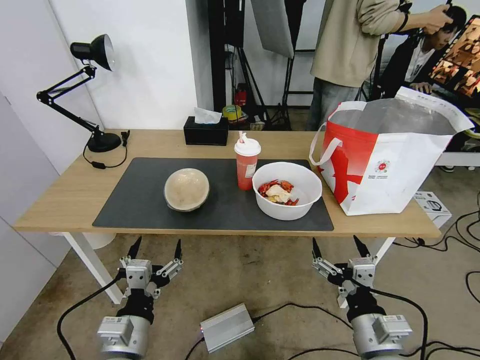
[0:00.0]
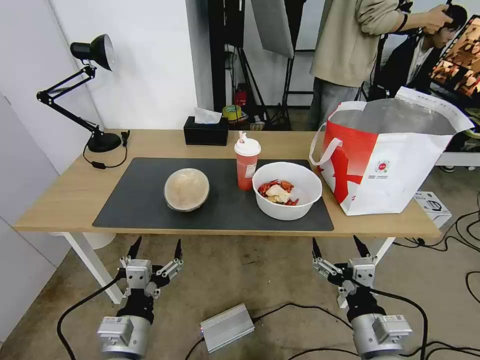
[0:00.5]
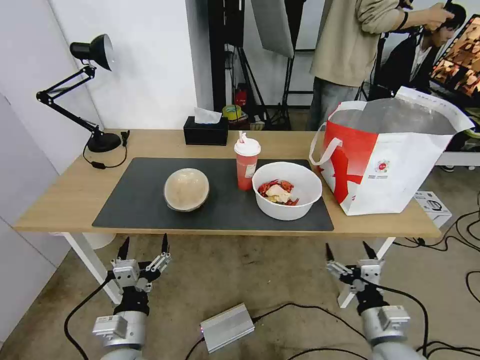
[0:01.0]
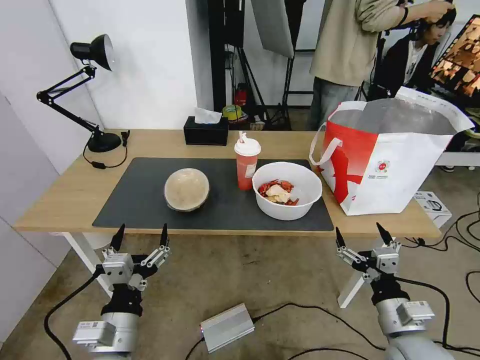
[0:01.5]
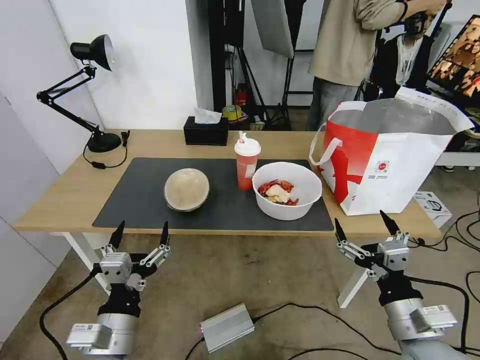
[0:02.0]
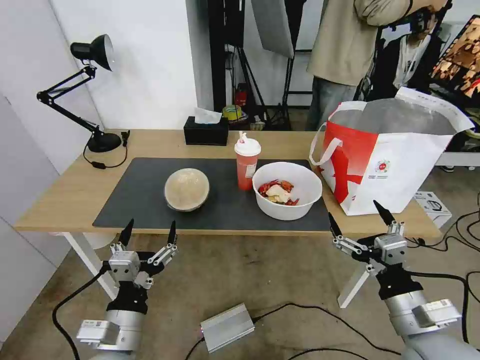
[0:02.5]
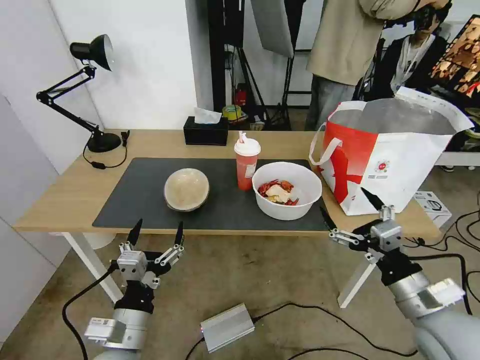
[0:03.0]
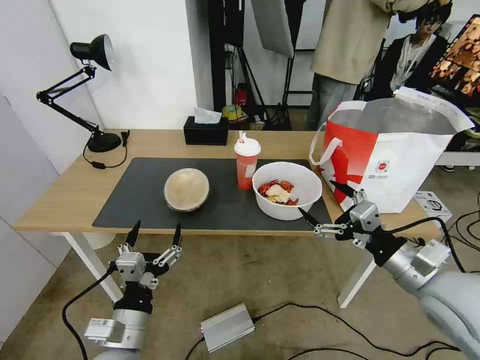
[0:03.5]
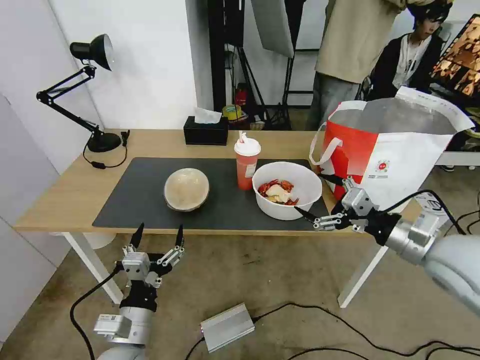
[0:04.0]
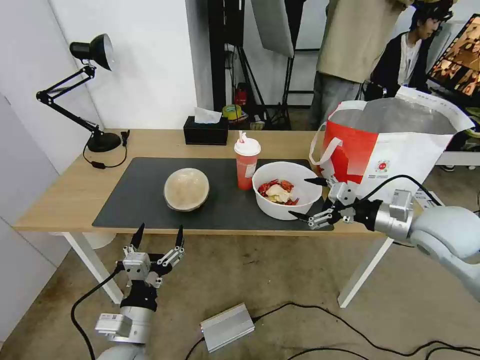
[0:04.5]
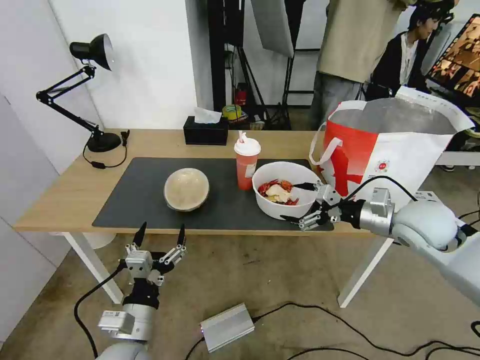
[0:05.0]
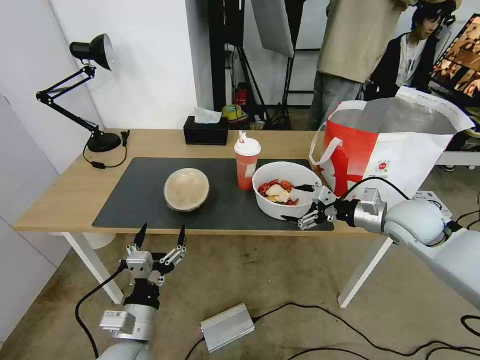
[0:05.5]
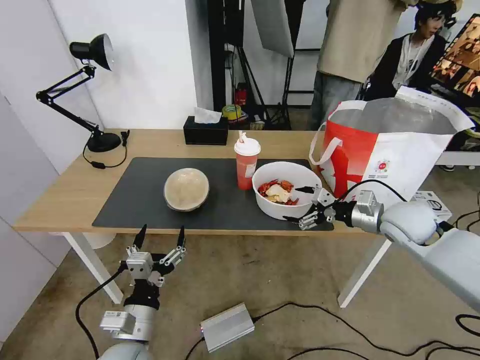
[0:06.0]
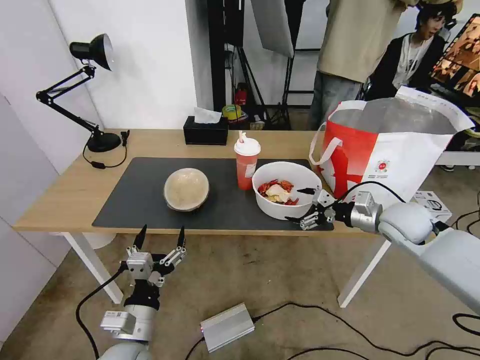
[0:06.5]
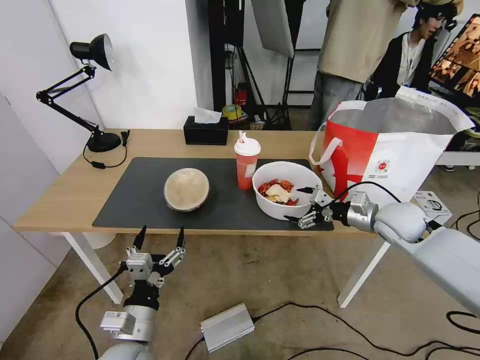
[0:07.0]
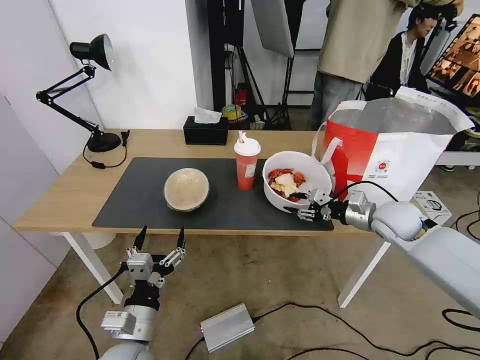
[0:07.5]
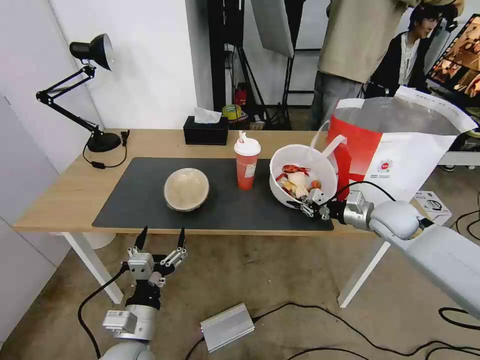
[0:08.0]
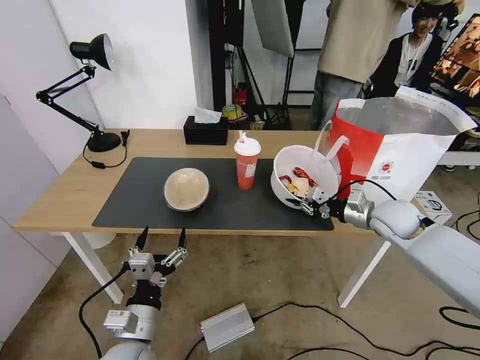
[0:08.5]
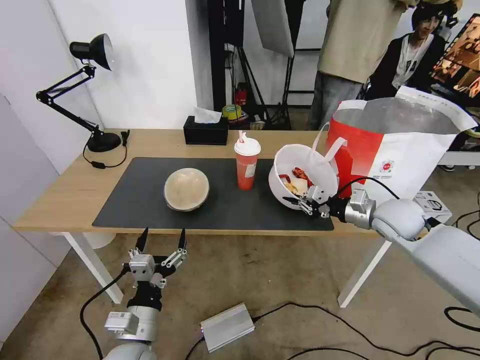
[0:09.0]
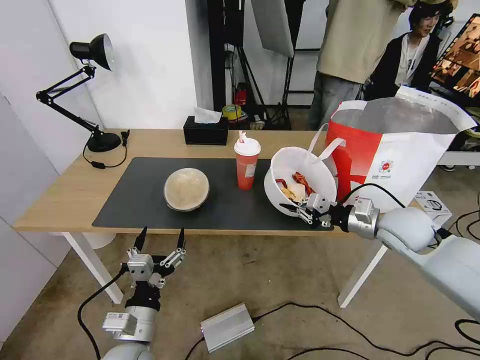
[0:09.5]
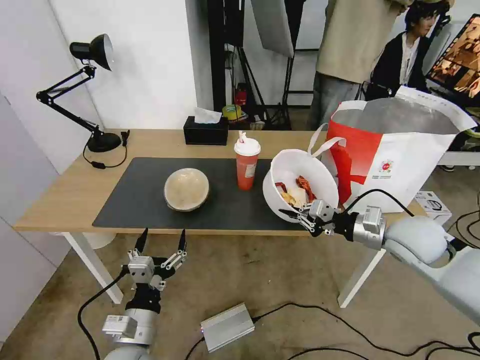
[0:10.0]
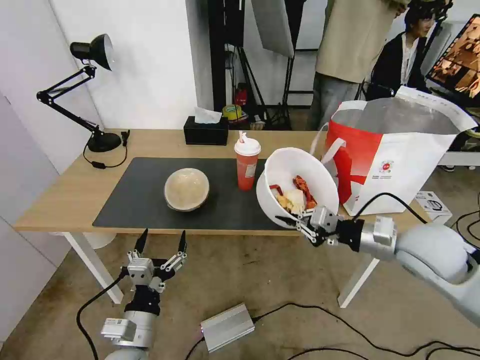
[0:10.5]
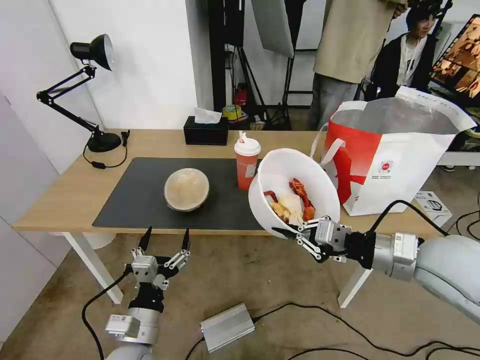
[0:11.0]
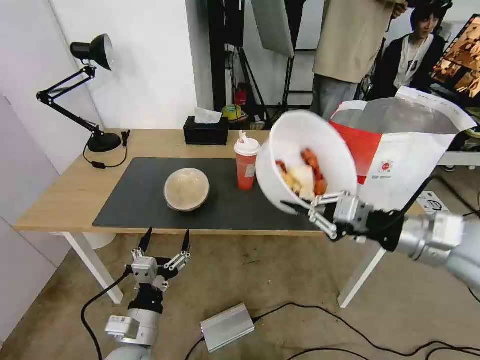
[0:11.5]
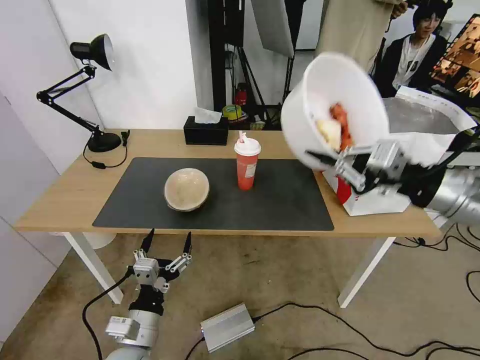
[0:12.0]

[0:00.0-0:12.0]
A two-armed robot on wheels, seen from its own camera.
Task of the whole recording: Pick up the trash from the table and place it into the takeout bag.
2.0 to 4.0 s: The right gripper travels forward, upward and to the right by about 20 cm.
4.0 to 6.0 s: The right gripper moves forward and downward, about 15 cm.
6.0 to 8.0 s: The right gripper closes.
8.0 to 10.0 s: The right gripper shifts roughly 10 cm backward.
10.0 to 12.0 s: The right gripper is displaced upward and backward by approximately 20 cm.

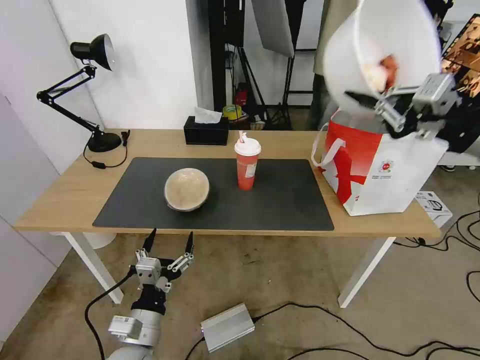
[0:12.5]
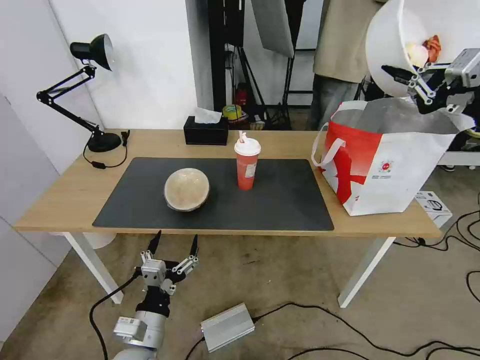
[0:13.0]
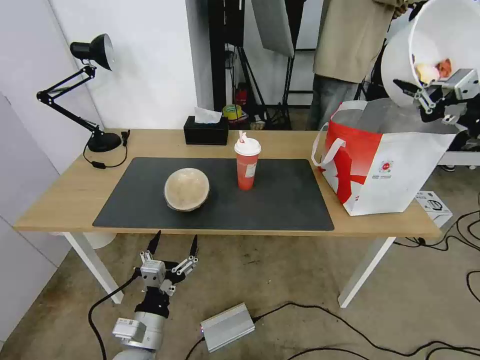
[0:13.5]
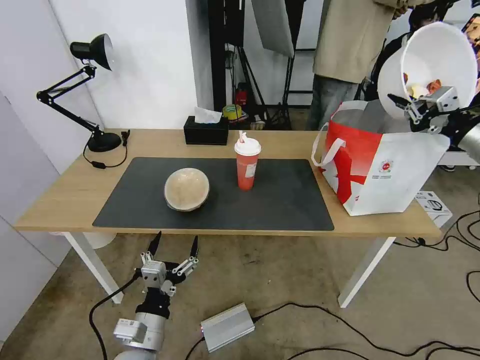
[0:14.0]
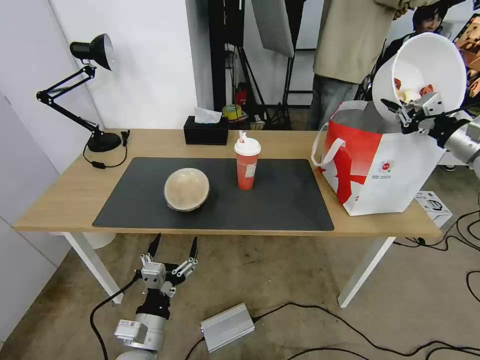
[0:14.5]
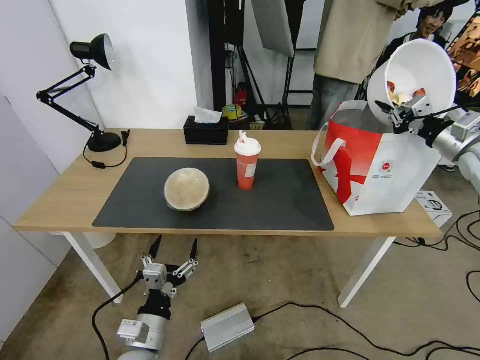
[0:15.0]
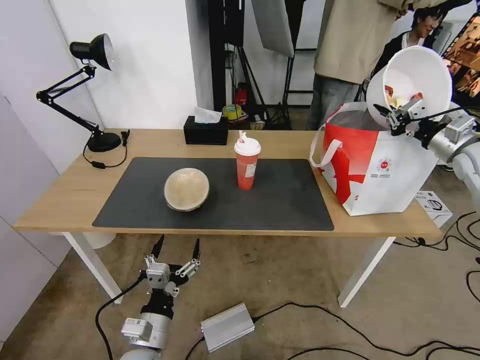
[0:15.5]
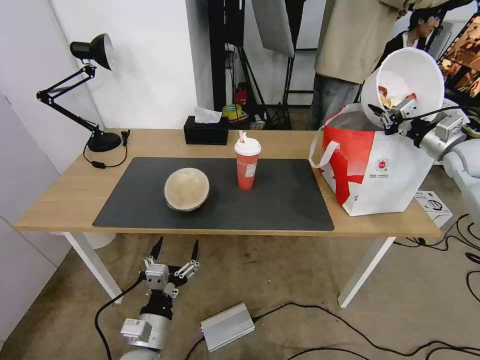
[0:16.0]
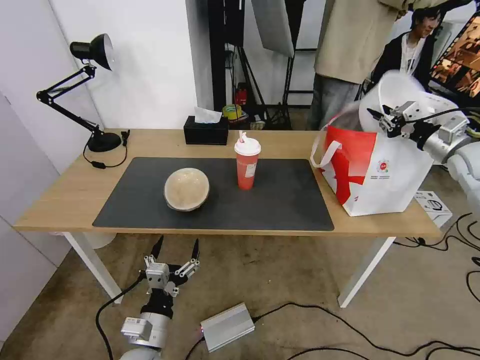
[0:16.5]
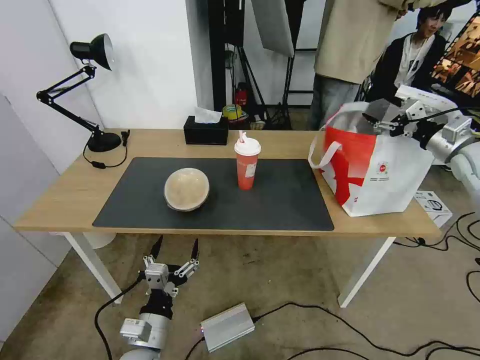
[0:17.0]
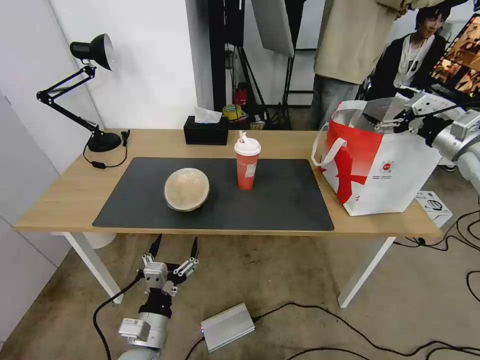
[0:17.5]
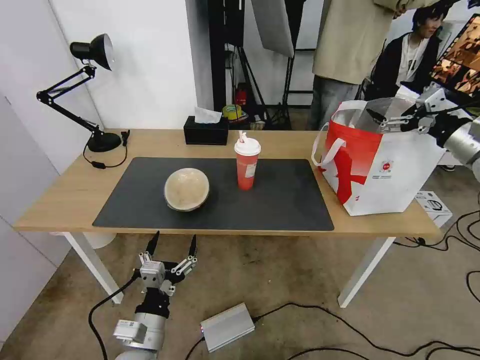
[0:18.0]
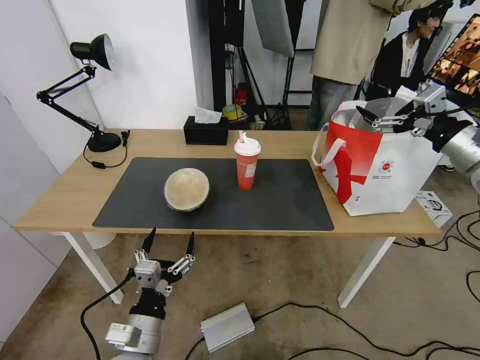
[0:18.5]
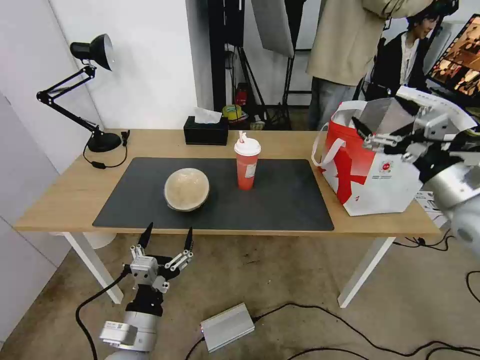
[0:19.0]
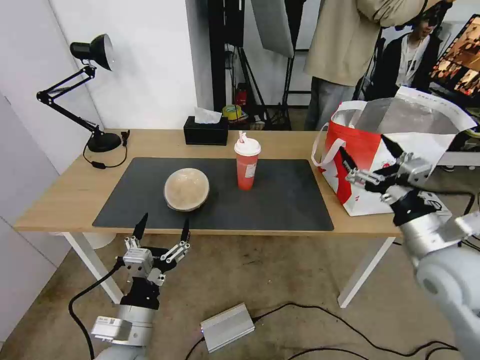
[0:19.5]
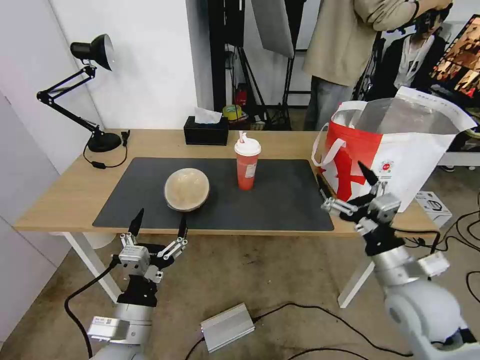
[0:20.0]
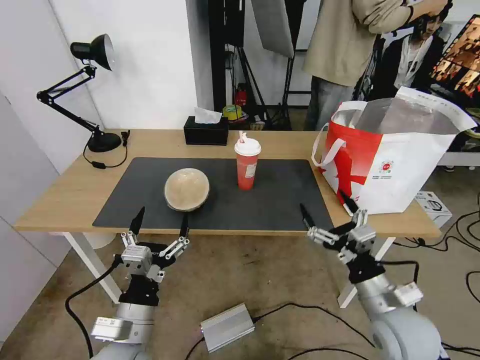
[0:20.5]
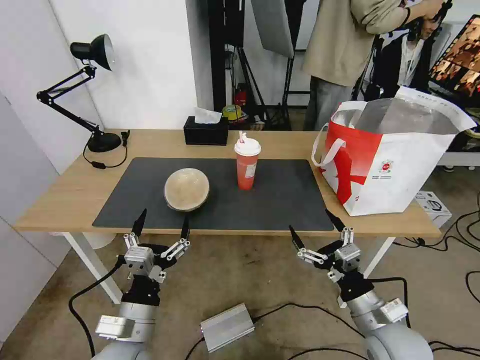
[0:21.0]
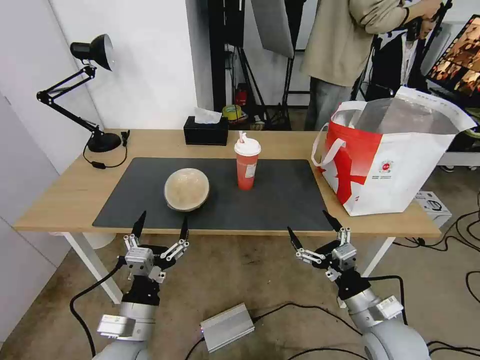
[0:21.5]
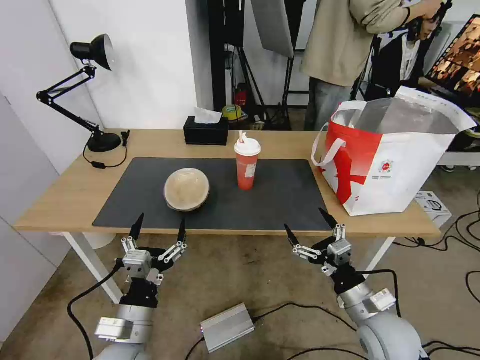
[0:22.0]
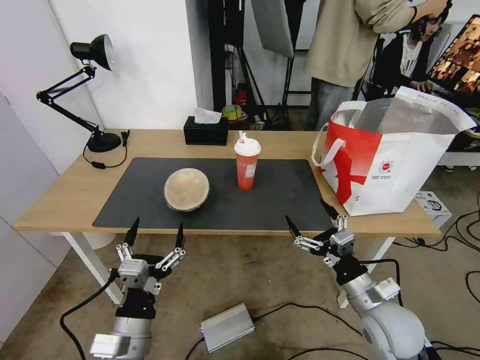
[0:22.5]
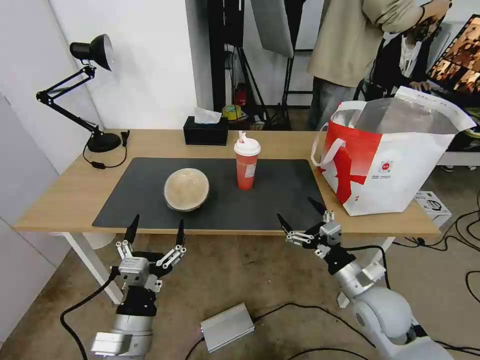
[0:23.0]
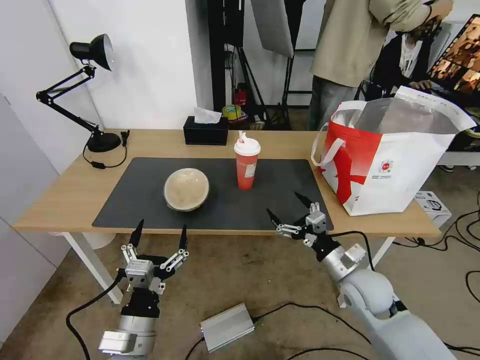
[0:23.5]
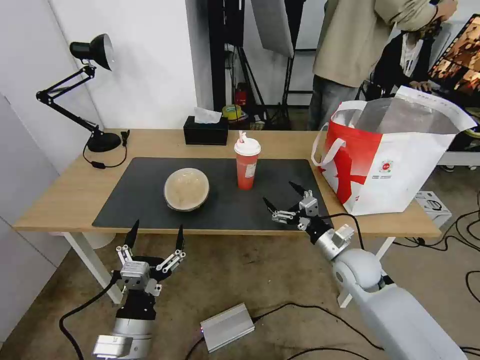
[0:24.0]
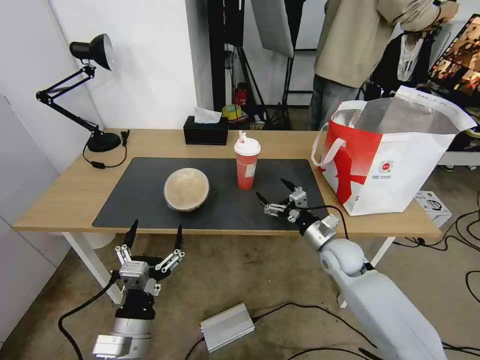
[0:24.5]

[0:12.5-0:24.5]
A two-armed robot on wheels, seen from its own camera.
Task of the whole recording: Pick up the trash from the table and place it into the takeout bag.
12.5 to 14.5 s: The right gripper moves forward, to the right and downward, about 20 cm.
14.5 to 16.5 s: The right gripper goes approximately 5 cm forward.
16.5 to 18.5 s: The right gripper is displaced backward, to the left and upward by some 15 cm, and opens its fingers.
18.5 to 20.5 s: The right gripper moves downward, backward and to the left, approximately 35 cm.
20.5 to 22.5 s: The grippers stay close to where they were, moving slightly.
22.5 to 24.5 s: The right gripper shifts about 15 cm forward.

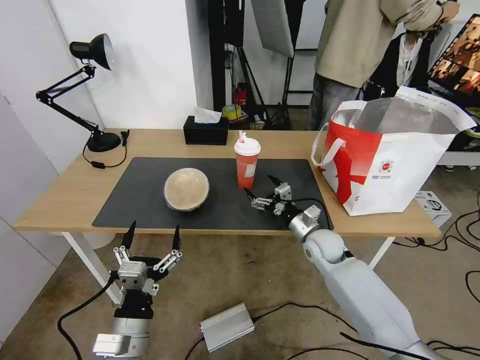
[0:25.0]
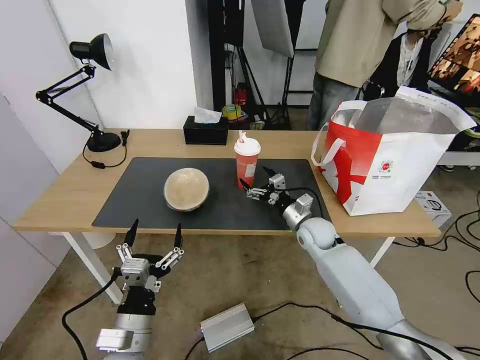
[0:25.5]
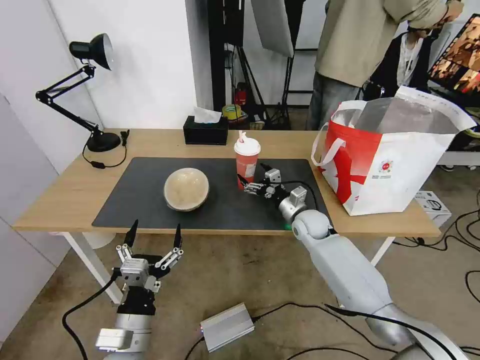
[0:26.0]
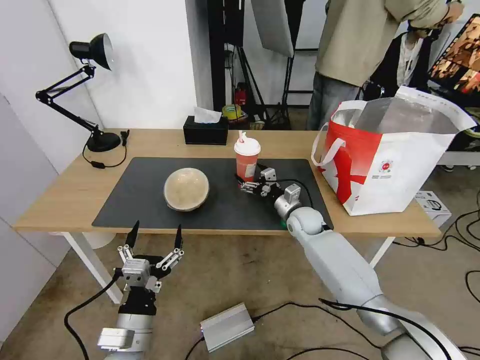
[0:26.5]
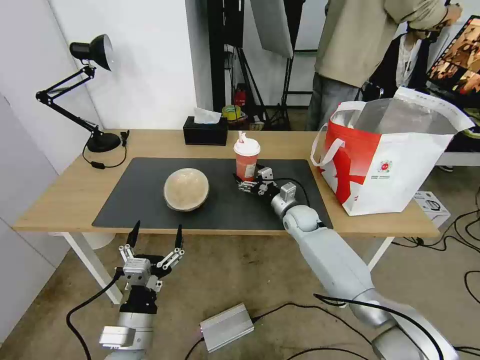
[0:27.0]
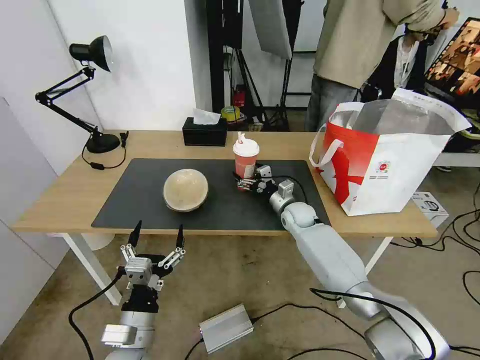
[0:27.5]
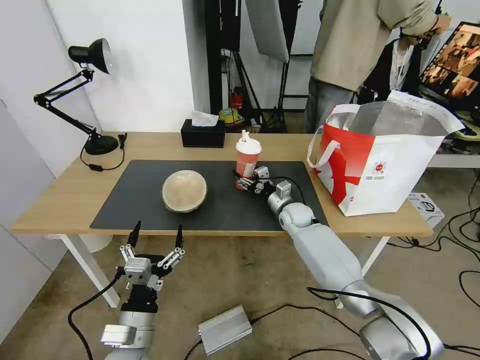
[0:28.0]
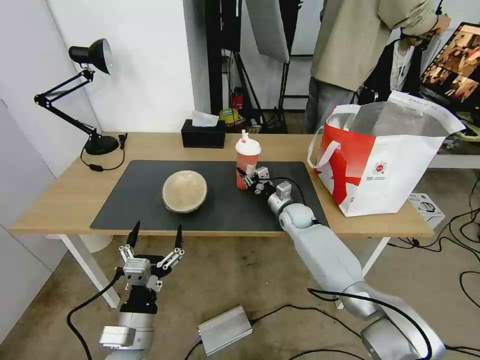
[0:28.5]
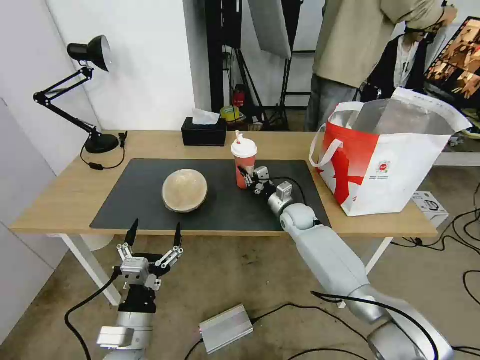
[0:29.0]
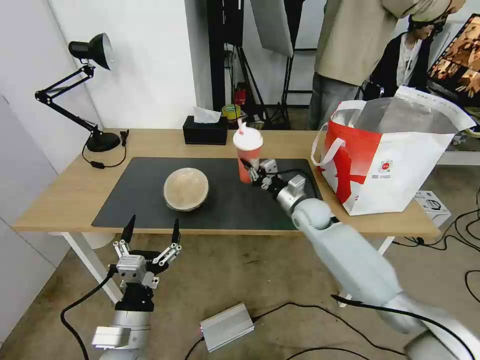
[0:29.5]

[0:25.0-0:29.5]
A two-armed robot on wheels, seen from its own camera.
Task of the whole recording: Pick up the trash from the table and place it into the takeout bag.
25.0 to 27.0 s: The right gripper travels forward by some 10 cm.
27.0 to 29.5 s: The right gripper heads upward, covering about 5 cm, and closes up.
